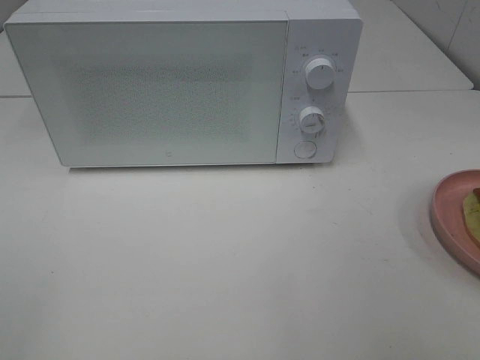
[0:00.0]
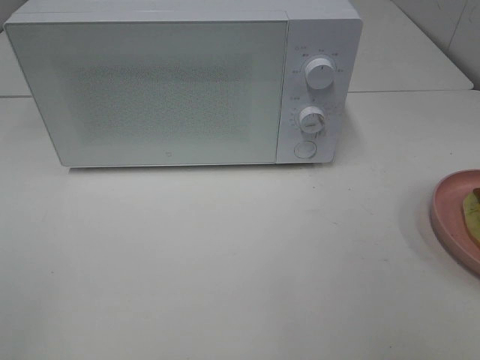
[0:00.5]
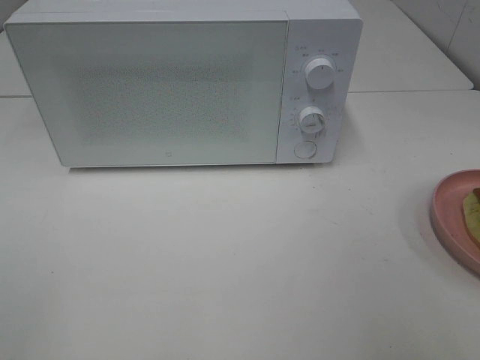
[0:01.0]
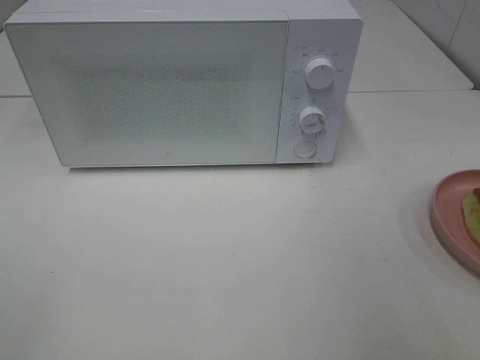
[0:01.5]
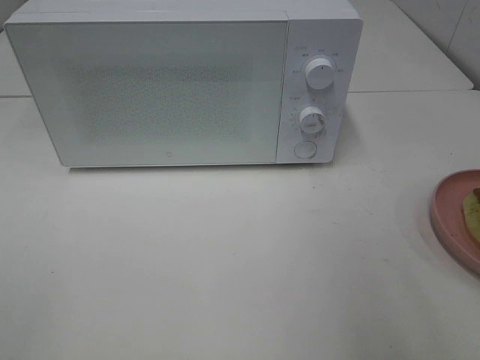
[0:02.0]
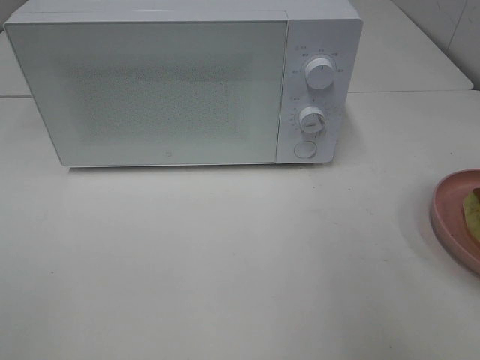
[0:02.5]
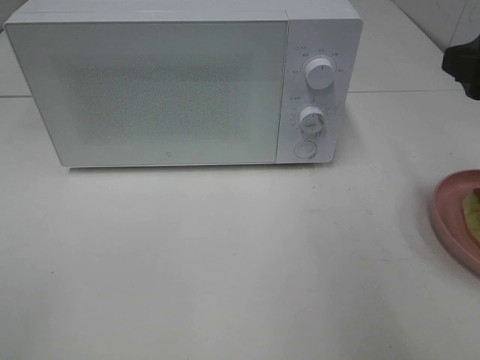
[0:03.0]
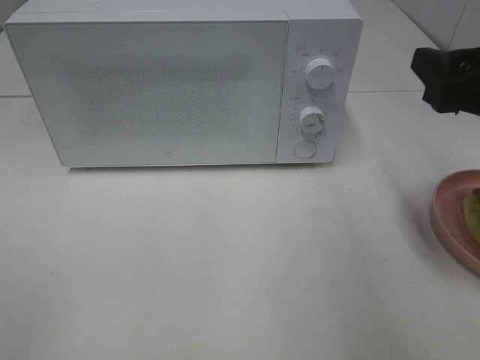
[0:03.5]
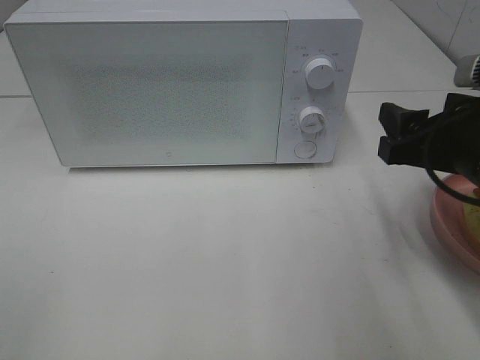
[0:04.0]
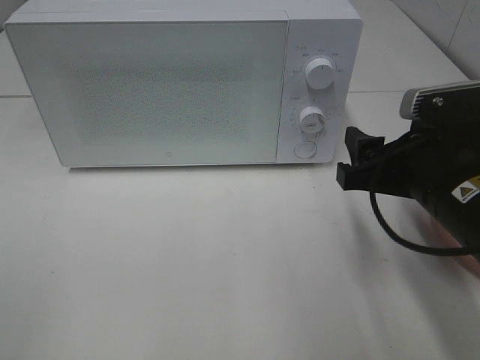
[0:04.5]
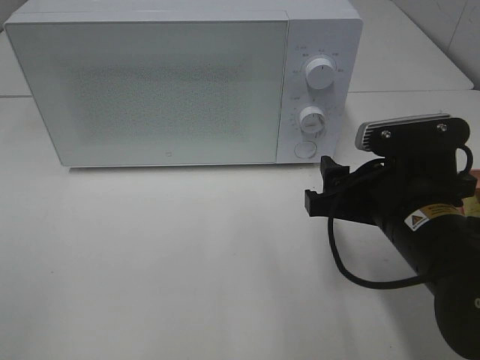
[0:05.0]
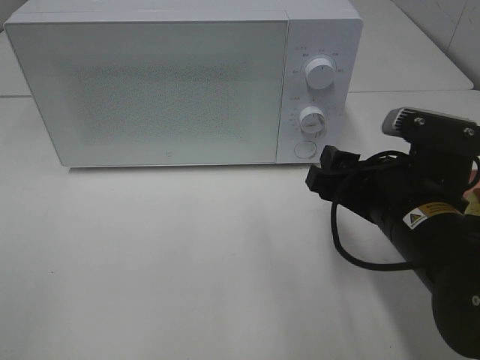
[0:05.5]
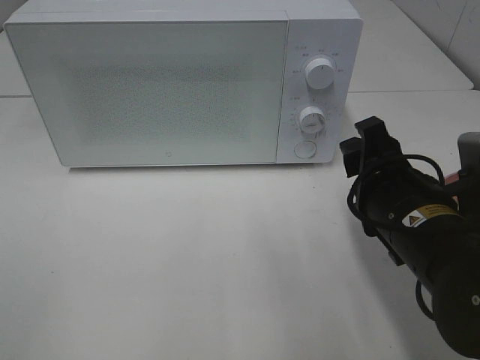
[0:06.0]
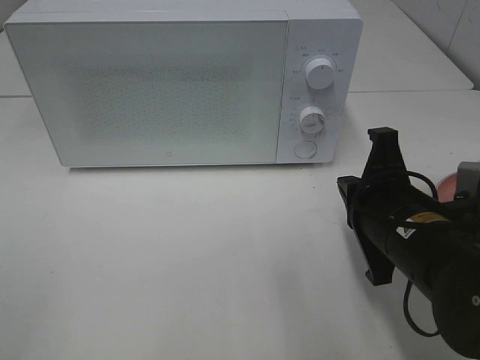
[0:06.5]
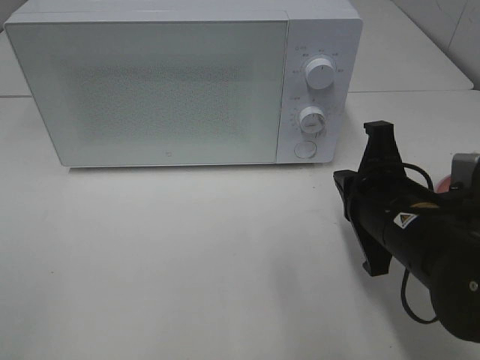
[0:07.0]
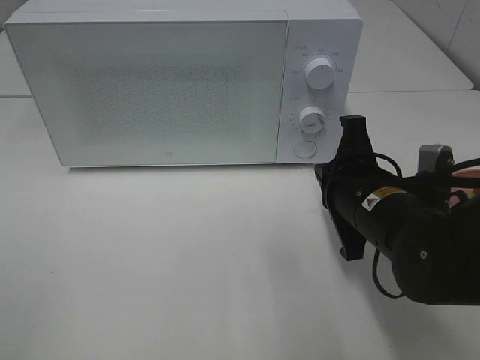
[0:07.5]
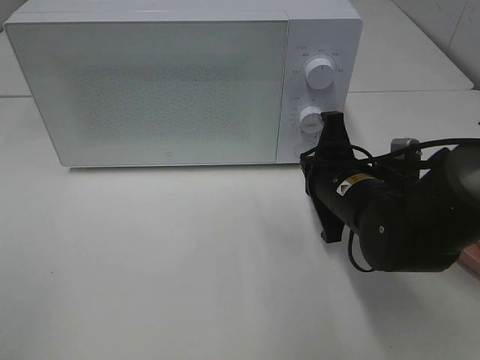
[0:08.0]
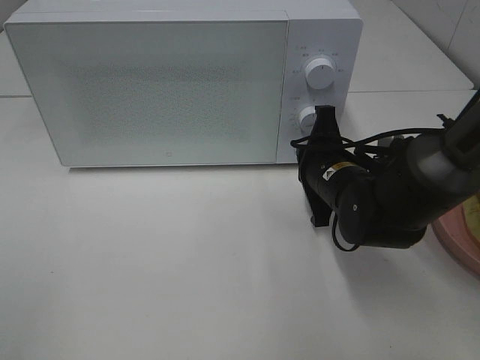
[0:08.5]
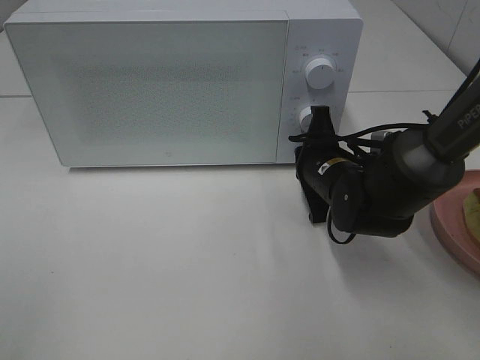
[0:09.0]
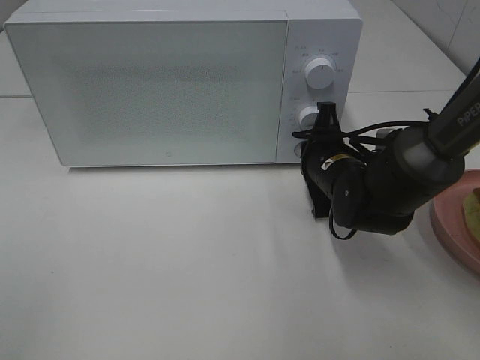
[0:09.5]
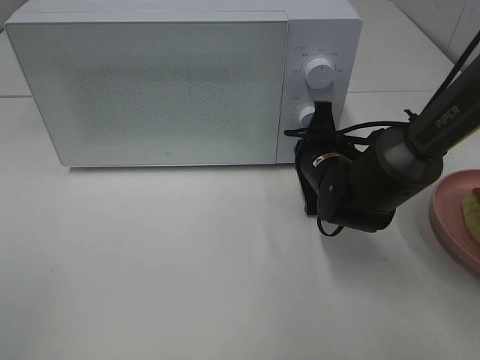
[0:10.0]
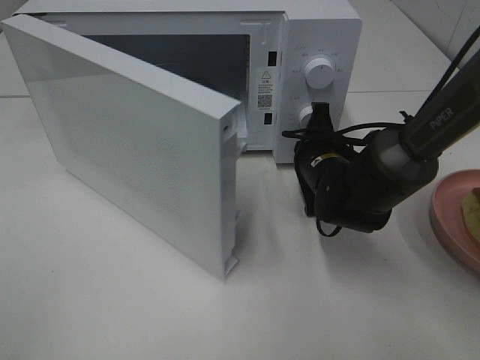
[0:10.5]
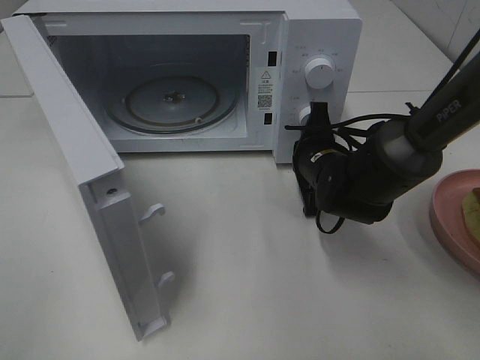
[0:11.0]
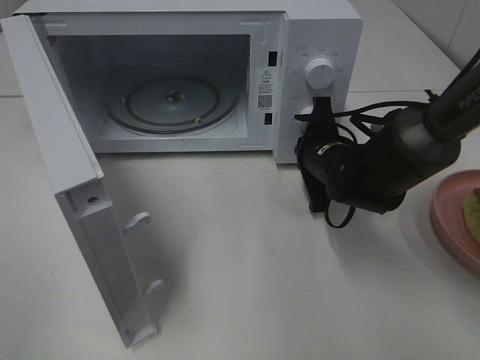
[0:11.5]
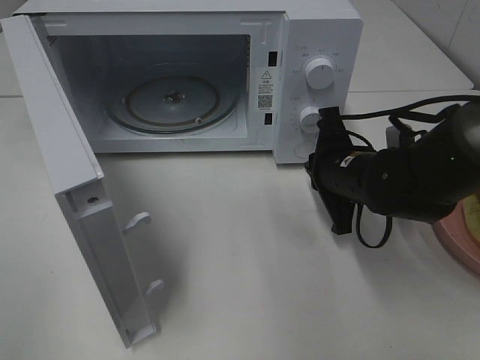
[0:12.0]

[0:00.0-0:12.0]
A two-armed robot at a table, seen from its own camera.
Task of the whole recording: Heat Sandwich.
0:02.0 to 0:04.0: The right gripper moves downward, forward and to the left, some 15 cm.
0:04.0 to 0:06.0: The right gripper shifts roughly 10 cm to the left and downward.
0:06.0 to 0:08.0: The right gripper travels forward by about 10 cm, and closes its fingers.
0:08.0 to 0:10.0: The right gripper moves forward, about 5 cm.
0:10.0 to 0:12.0: The right gripper shifts by about 5 cm.

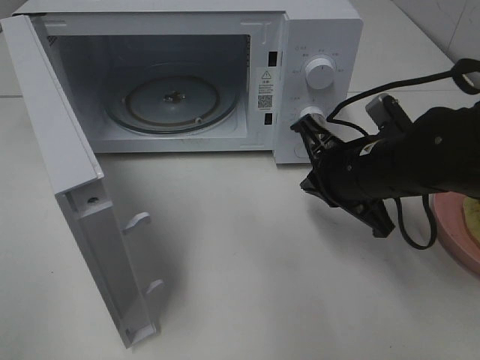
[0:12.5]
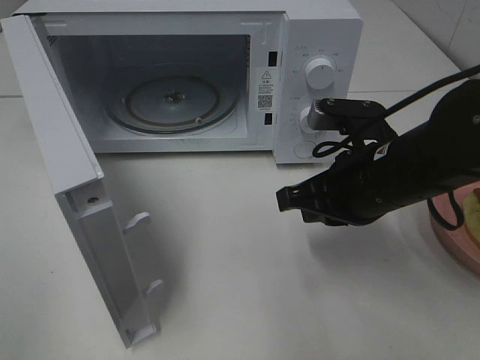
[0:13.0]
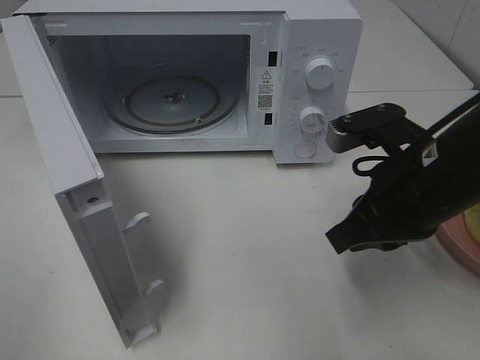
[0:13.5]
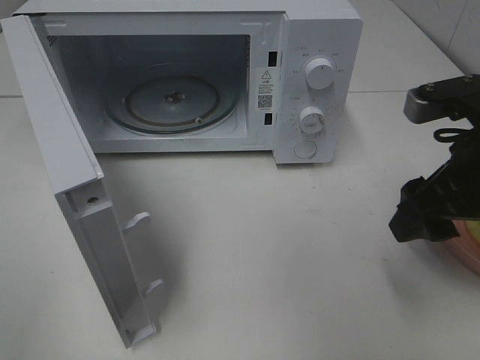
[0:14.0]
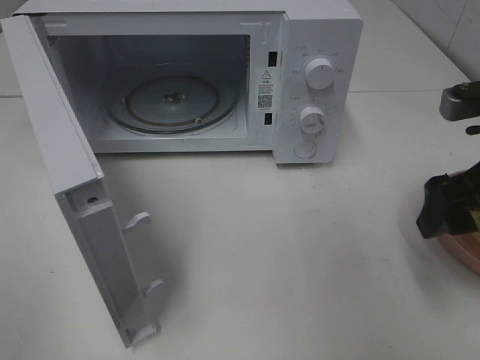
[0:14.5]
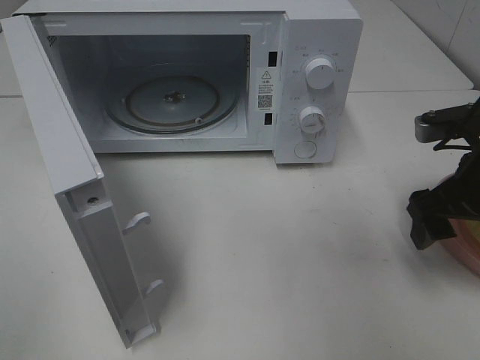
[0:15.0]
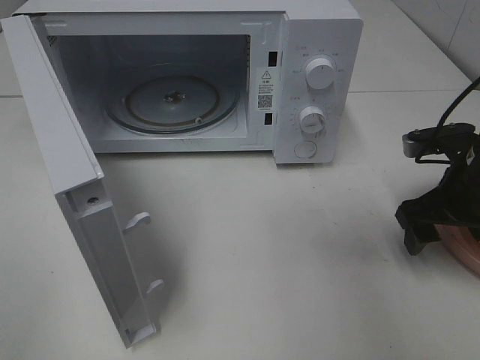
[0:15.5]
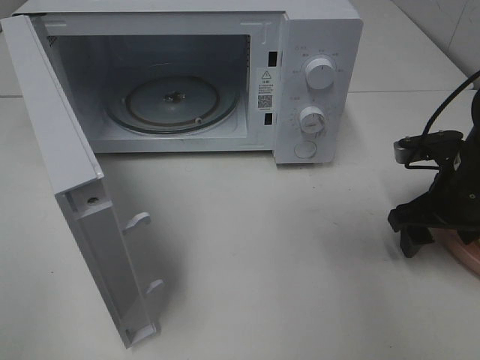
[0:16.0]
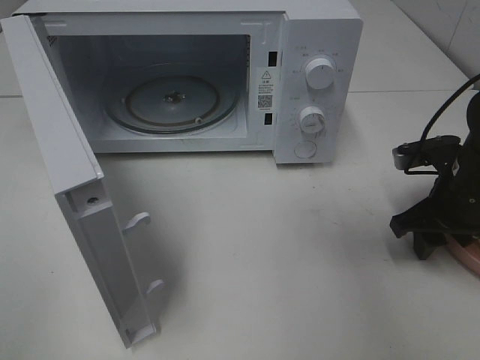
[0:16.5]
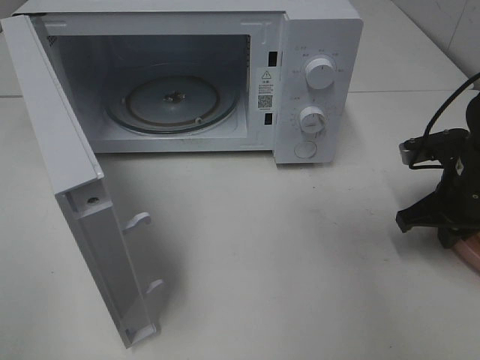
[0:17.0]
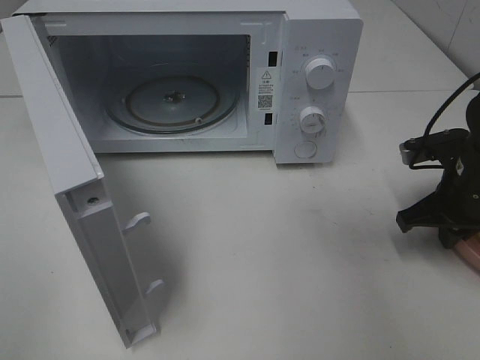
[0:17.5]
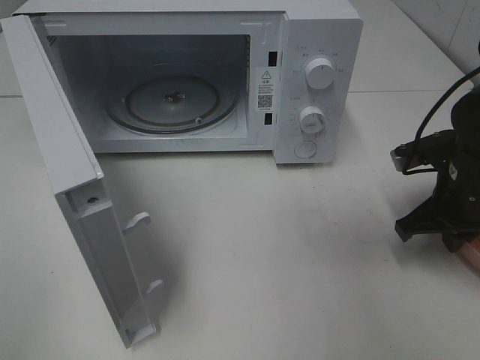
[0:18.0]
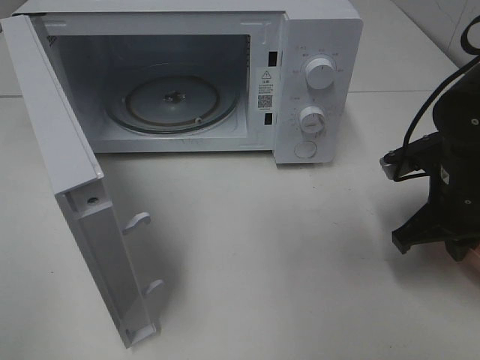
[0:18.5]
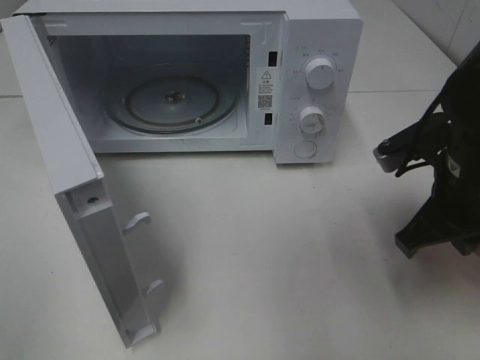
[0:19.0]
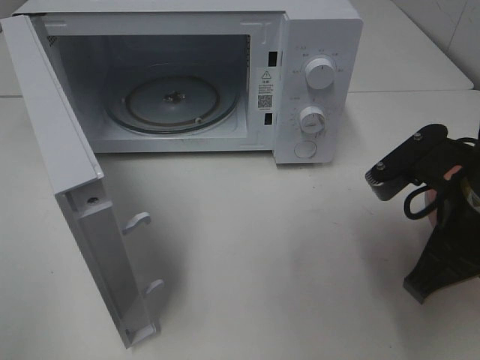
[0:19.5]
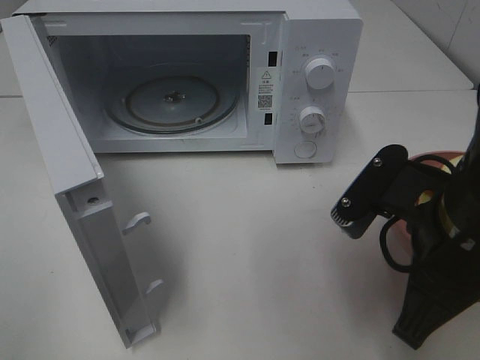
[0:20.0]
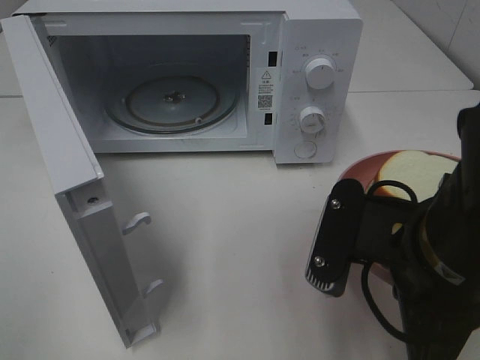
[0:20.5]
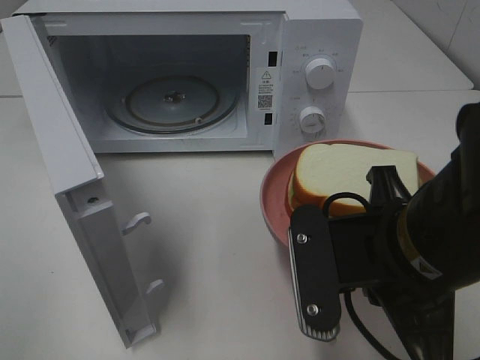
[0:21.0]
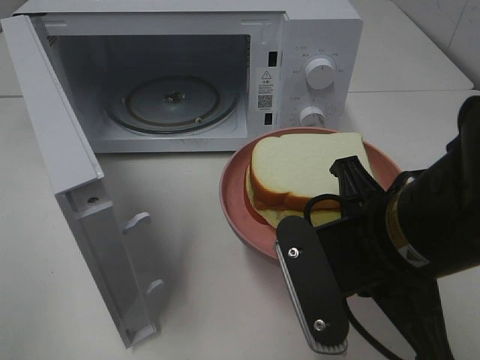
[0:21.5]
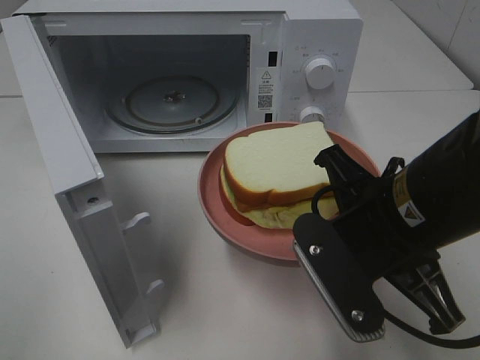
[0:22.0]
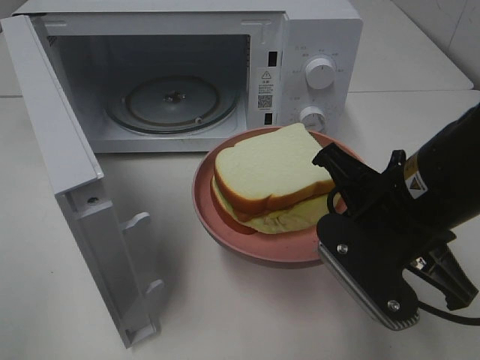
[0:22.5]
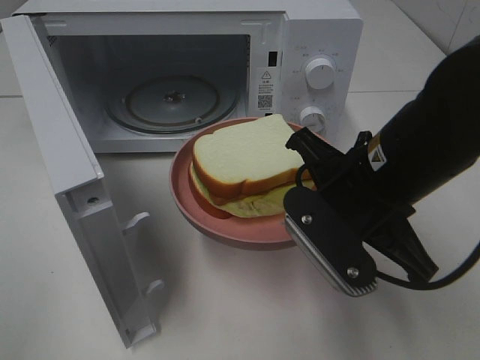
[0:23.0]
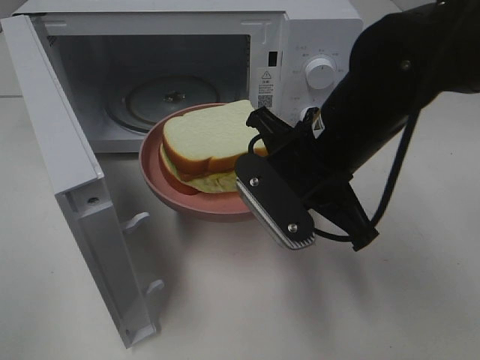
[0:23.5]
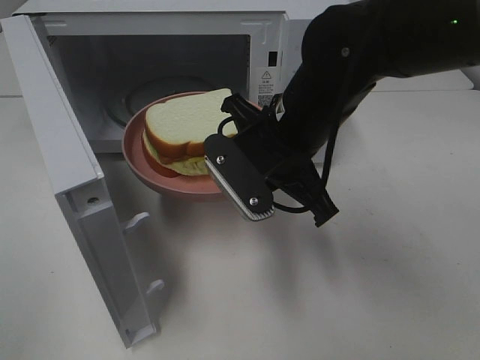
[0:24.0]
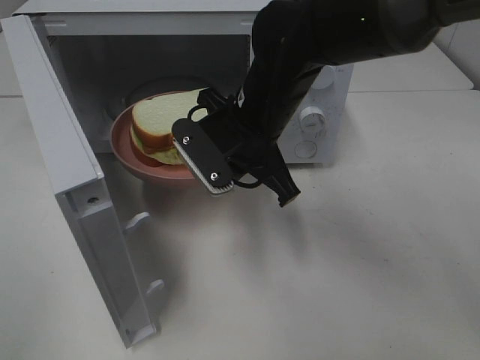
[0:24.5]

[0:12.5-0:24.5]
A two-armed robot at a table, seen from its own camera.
Task of the whole recording: Heat Sandwich.
Step, 0:12.5 to 0:17.5: Right hand: grab the plate with the sandwich.
0:12.5 to 0:14.5: The right gripper goes approximately 15 cm to the right, upward and backward, and opens.
0:14.5 to 0:16.5: The right gripper shifts about 15 cm downward and forward.
0:16.5 to 0:18.5: The right gripper closes its fingers.
0:18.5 to 0:20.5: The right gripper goes roughly 20 cm backward, to the left and upward.
0:20.5 to 0:22.5: The right gripper shifts about 5 cm forward.
0:22.5 to 0:24.5: The right gripper travels forward and to the left by about 15 cm.

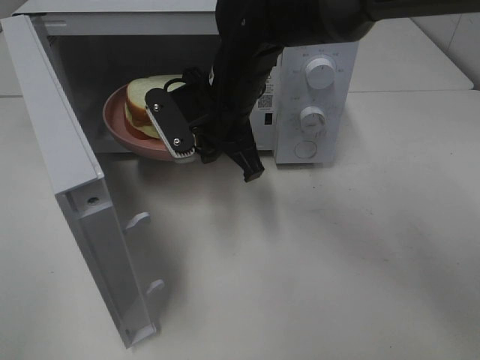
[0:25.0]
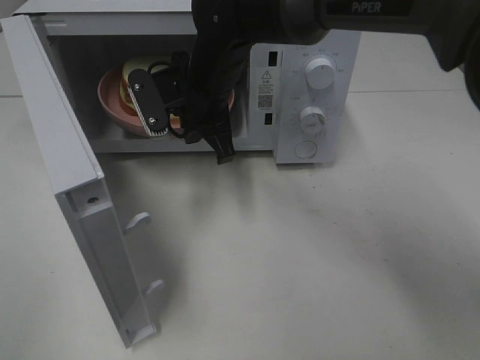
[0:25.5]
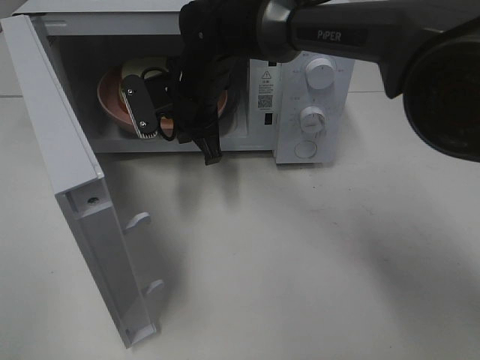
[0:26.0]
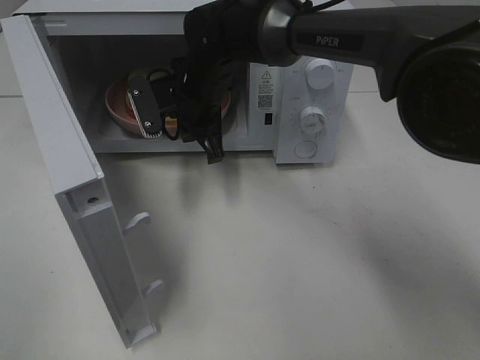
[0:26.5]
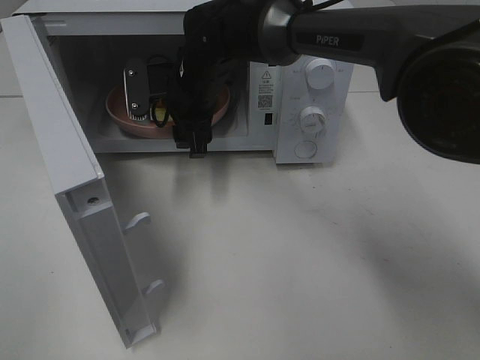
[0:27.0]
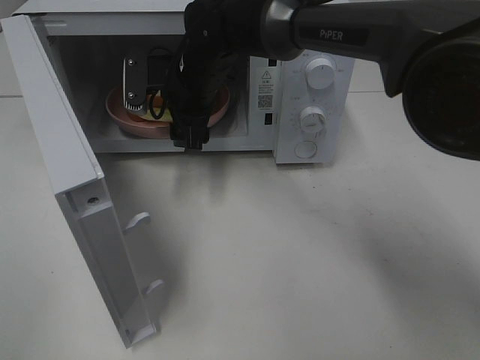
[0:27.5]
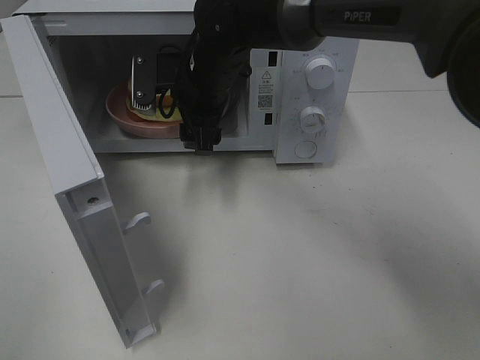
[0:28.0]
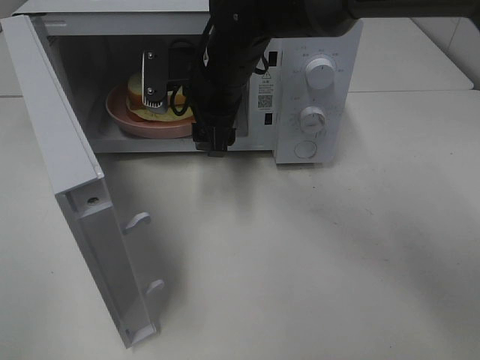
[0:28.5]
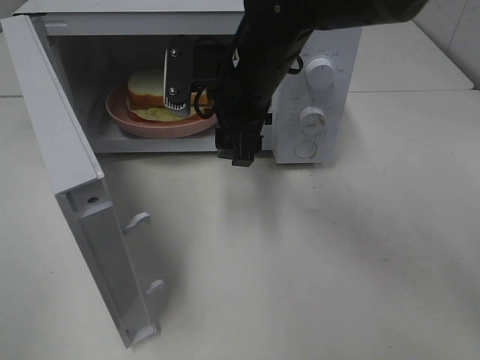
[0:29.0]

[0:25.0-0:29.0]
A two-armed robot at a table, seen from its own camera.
Task of the whole recording: Heat Sandwich.
Step, 0:25.0 to 0:28.0: Right hand: place the plate in the microwave.
0:25.0 to 0:27.0: The right gripper travels forward by some 5 cm, and opens up.
0:27.0 to 0:29.0: The right gripper moves backward, to the right and upward, approximately 10 cm.
